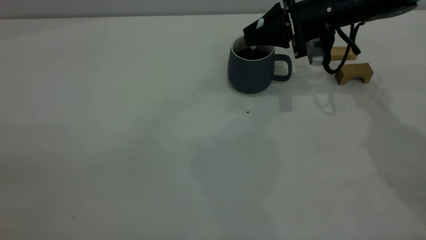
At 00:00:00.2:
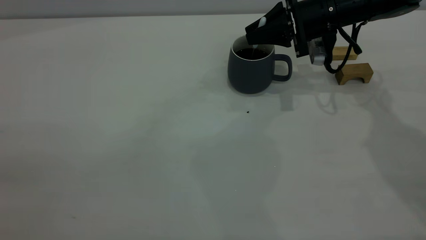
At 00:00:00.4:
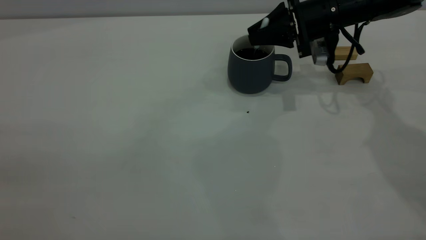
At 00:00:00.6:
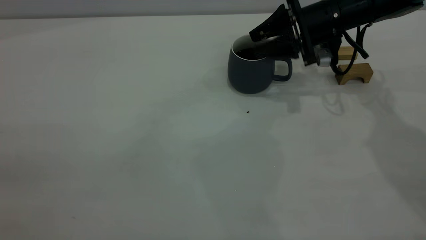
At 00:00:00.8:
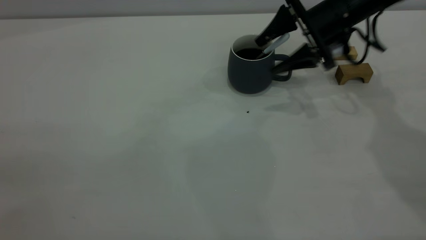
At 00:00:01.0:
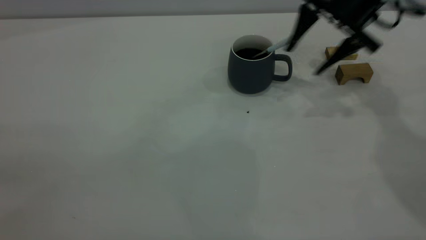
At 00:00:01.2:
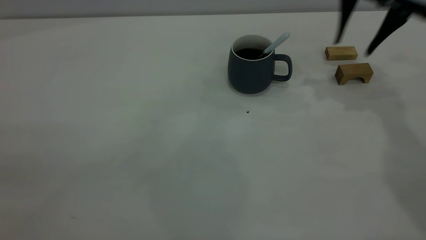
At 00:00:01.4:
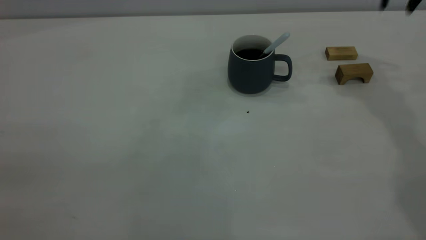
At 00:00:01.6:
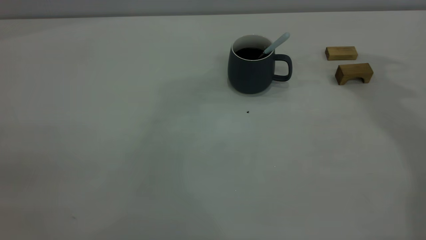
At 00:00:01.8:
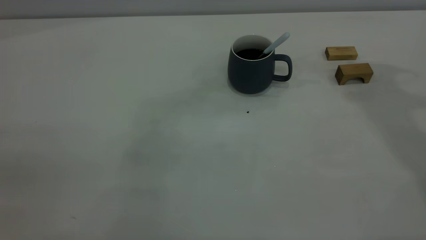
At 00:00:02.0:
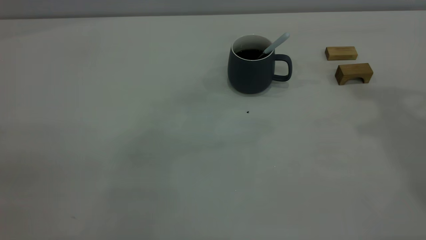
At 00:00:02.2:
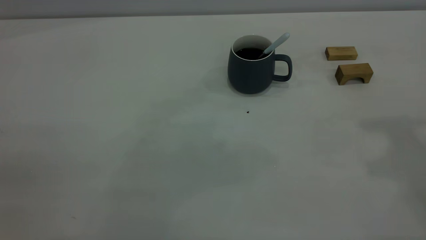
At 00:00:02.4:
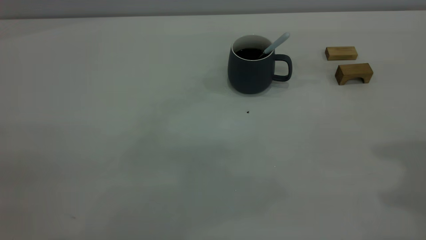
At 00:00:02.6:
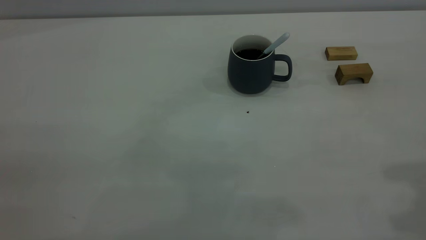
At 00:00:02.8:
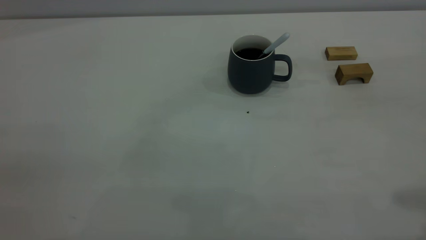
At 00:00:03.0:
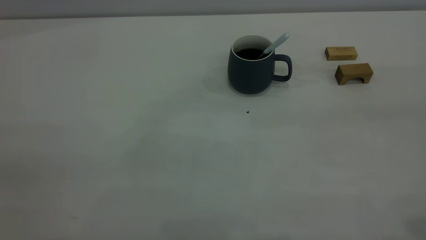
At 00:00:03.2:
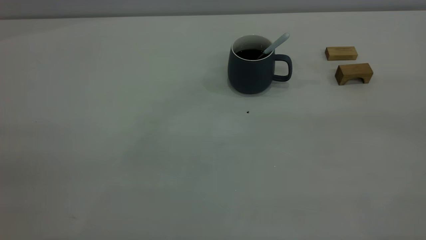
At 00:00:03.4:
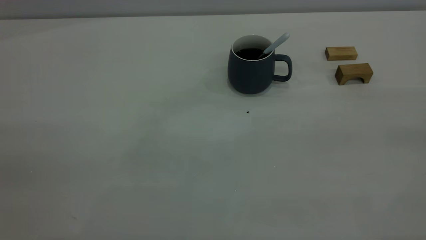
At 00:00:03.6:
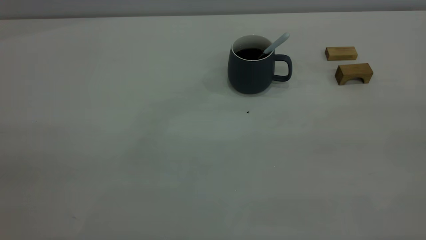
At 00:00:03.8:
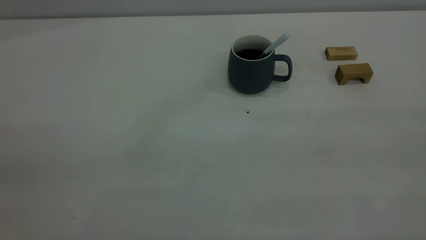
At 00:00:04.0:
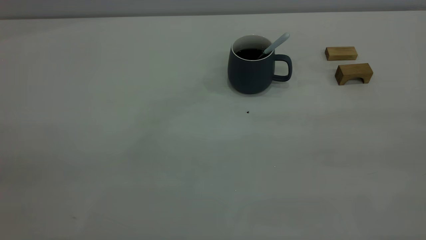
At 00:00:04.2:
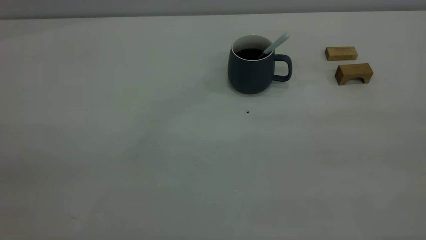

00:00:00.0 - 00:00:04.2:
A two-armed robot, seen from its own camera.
00:00:00.0 - 00:00:01.4: The right gripper is displaced upward and to the right by about 20 cm, and opens up.
